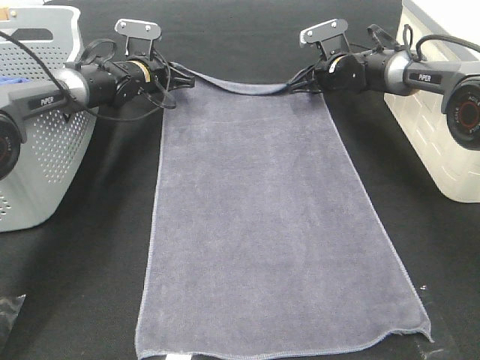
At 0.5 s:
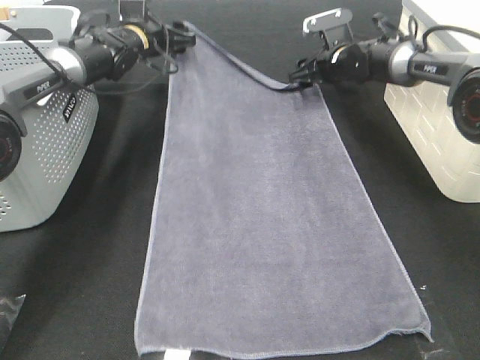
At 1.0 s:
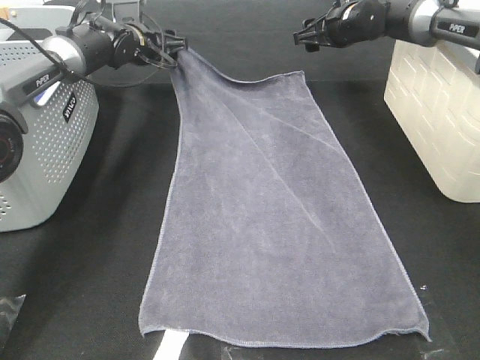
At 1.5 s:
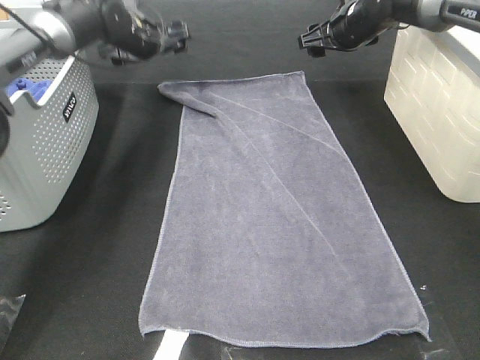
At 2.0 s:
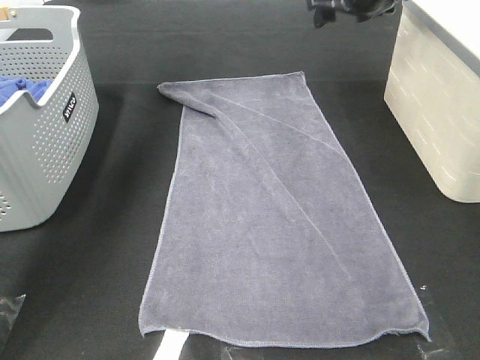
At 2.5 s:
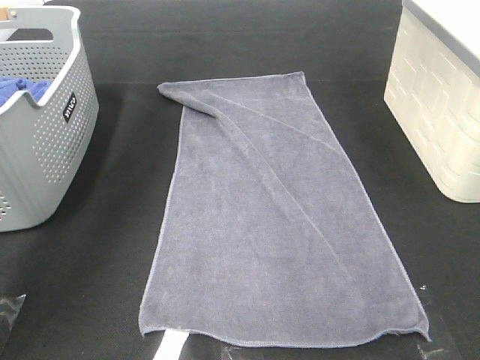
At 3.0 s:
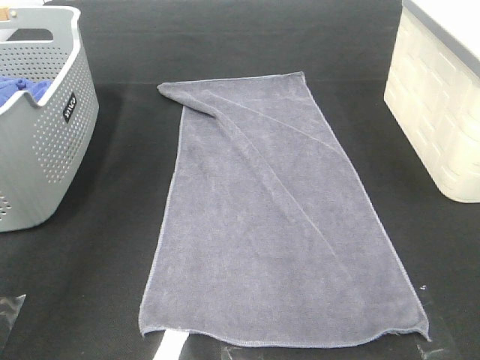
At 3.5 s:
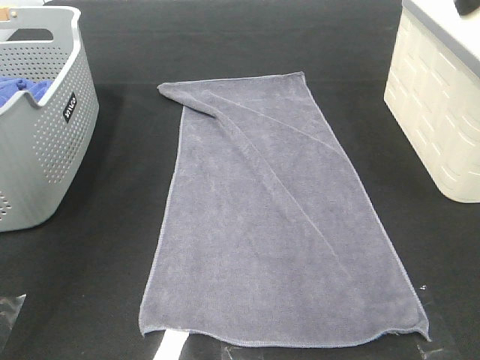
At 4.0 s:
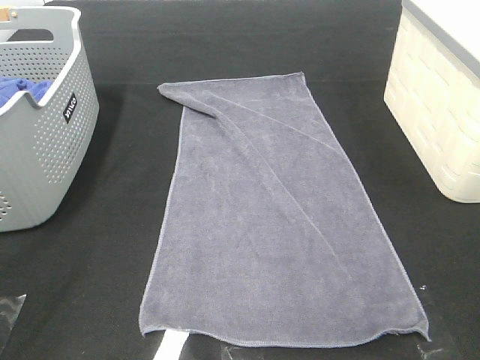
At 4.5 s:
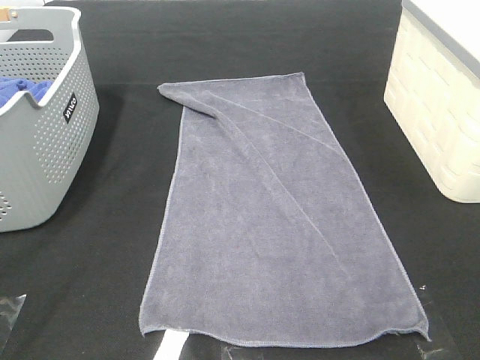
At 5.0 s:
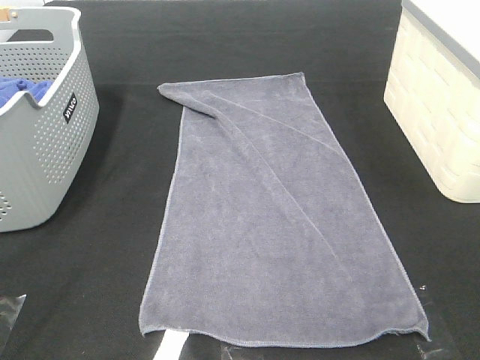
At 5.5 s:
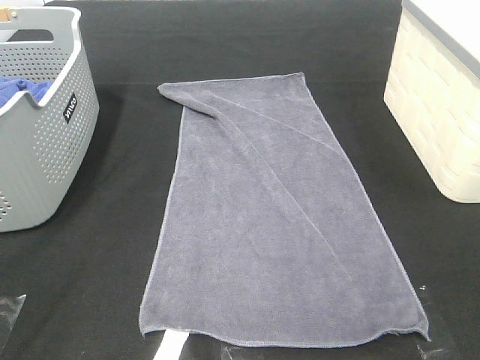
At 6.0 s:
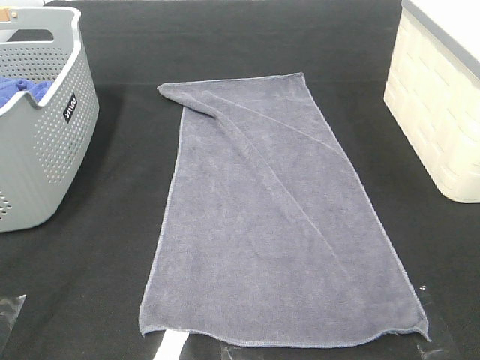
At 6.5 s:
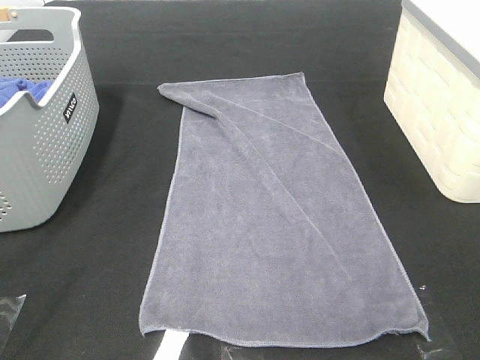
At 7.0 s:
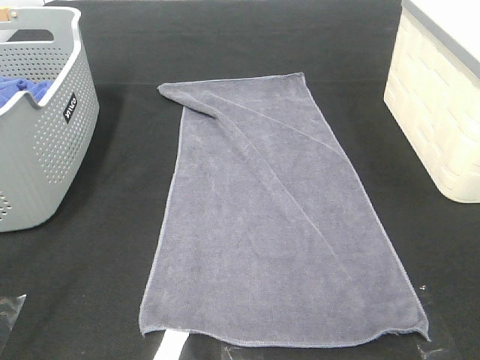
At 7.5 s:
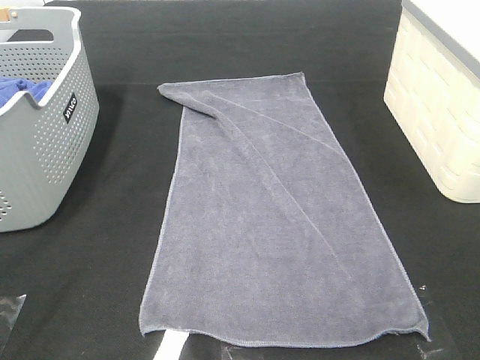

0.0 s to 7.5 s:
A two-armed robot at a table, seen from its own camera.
Task of the whole recording: Remove the towel and place it.
0.0 to 2.0 s: Both grippers travel together upward, about 20 cm. The left gripper opens its fingers. Meanwhile the right gripper opens.
2.0 to 4.0 s: Both grippers move backward, roughly 50 cm.

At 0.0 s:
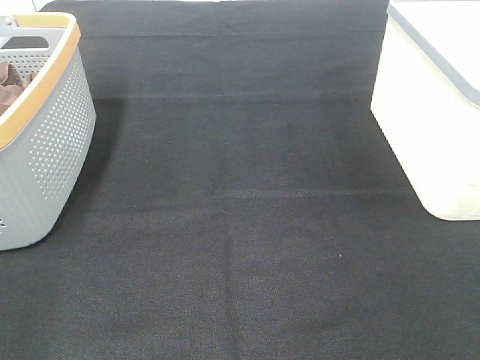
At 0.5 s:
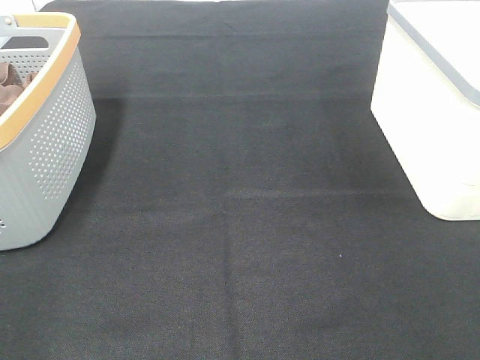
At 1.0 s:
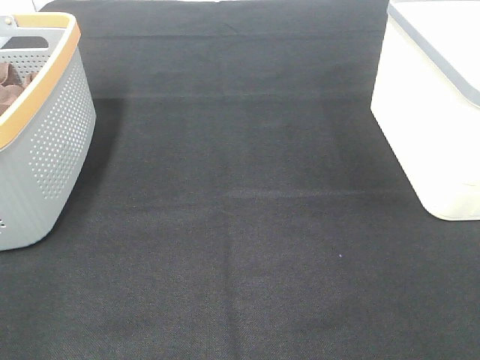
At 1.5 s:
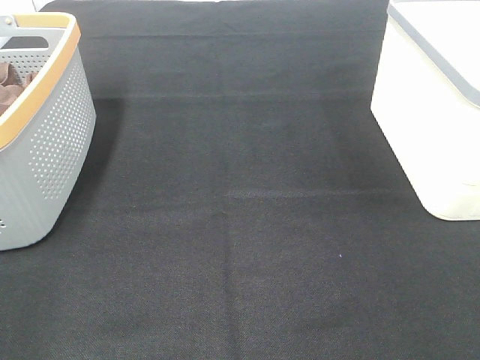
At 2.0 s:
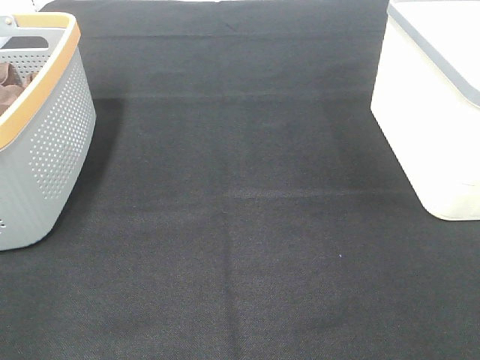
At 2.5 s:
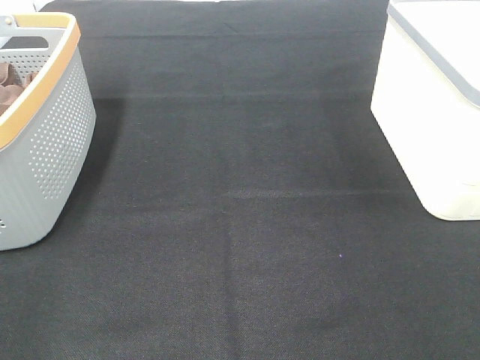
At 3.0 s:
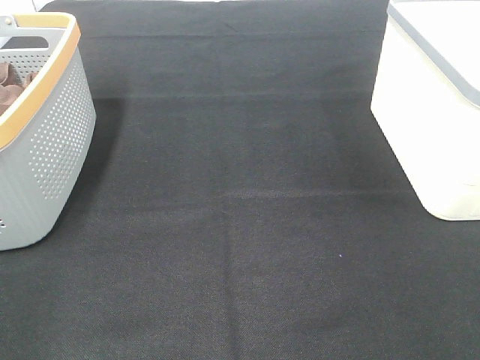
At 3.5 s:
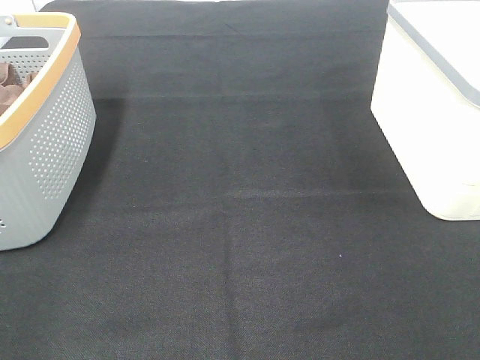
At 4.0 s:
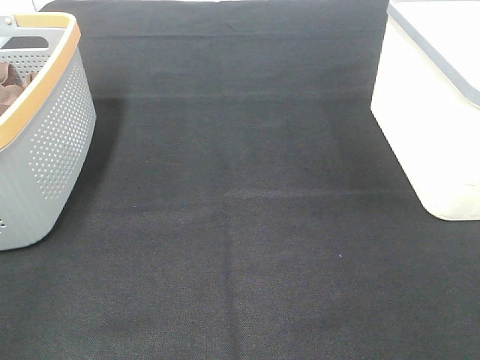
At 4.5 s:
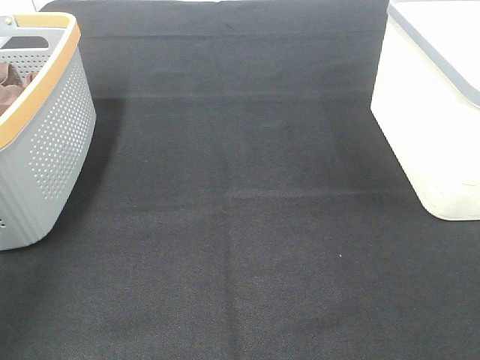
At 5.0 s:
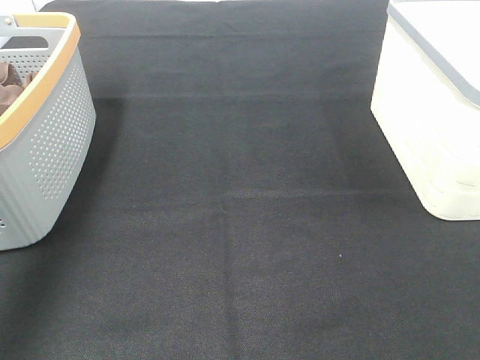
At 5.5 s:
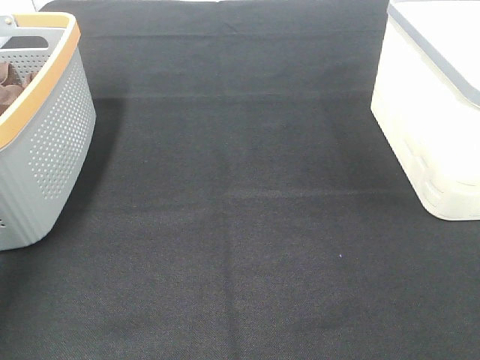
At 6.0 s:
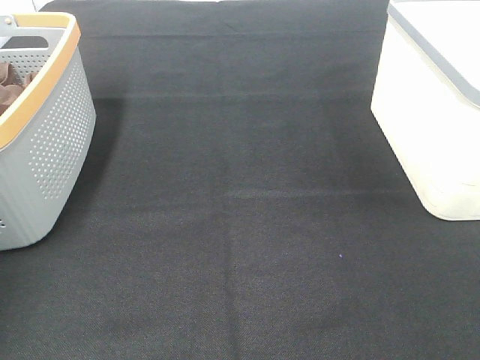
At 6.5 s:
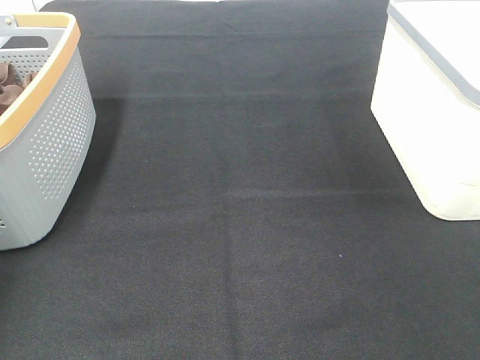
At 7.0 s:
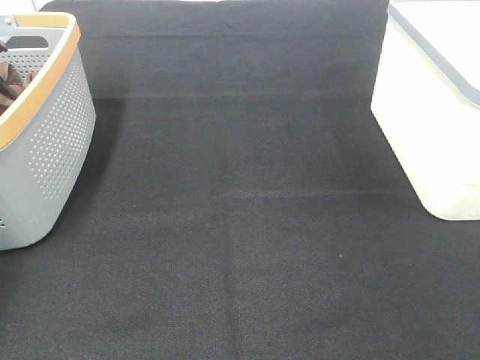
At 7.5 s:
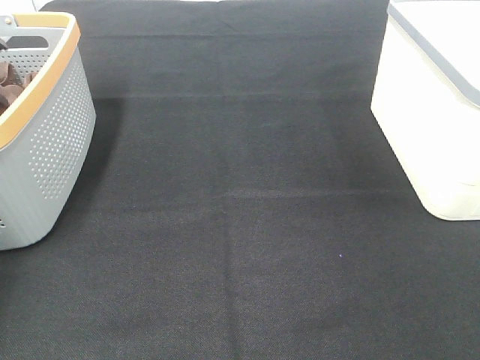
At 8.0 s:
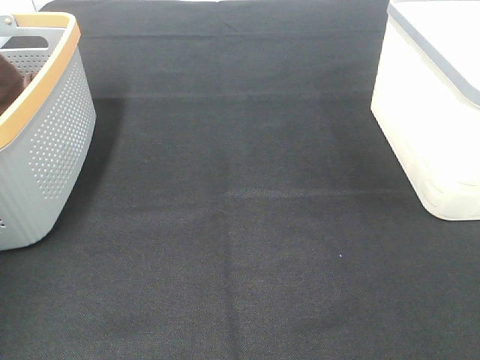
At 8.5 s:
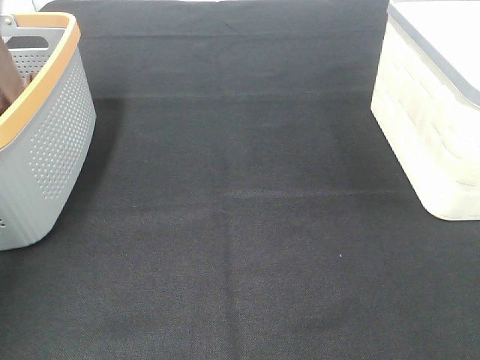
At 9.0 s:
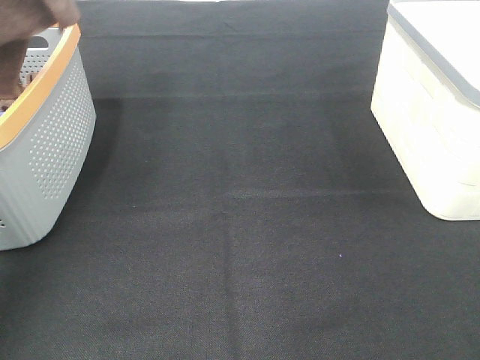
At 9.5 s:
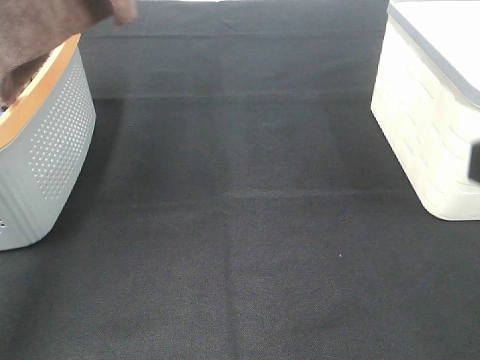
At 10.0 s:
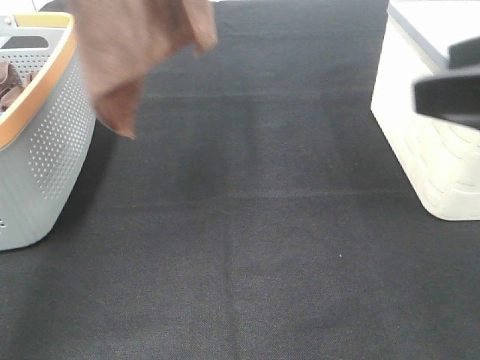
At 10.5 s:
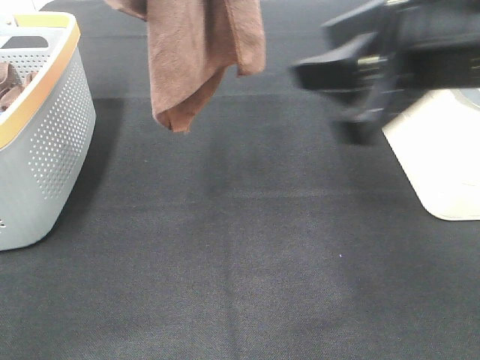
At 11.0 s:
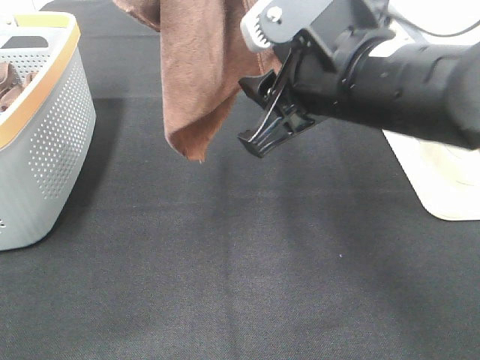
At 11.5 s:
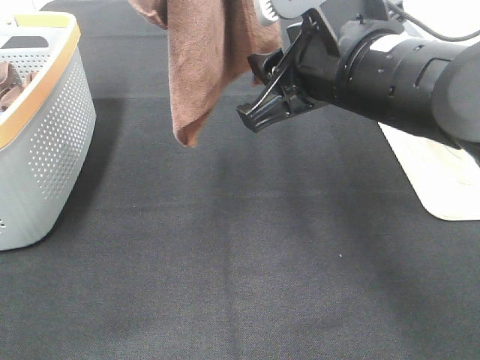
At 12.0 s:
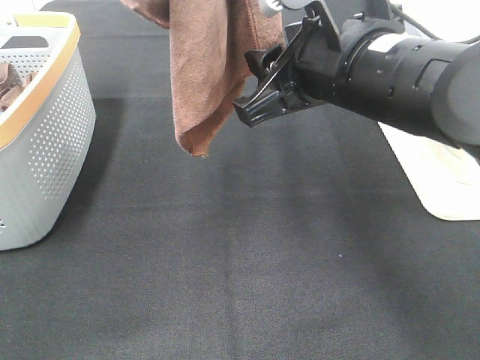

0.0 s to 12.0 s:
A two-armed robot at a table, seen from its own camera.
Task of the whole recording: Remove the towel and place it.
Step, 8.5 to 12.0 s: Right hand: grab a corner of the brown towel and straighten it.
0.0 to 2.0 s: Neither gripper changes place.
8.0 to 10.0 s: The right gripper moves forward and to the left, about 15 cm, while the left gripper shifts approximately 25 cm to the right, upward and backward.
10.0 to 12.0 s: The right gripper is displaced to the left, forward and downward by approximately 15 cm, while the left gripper goes about 5 cm to the right.

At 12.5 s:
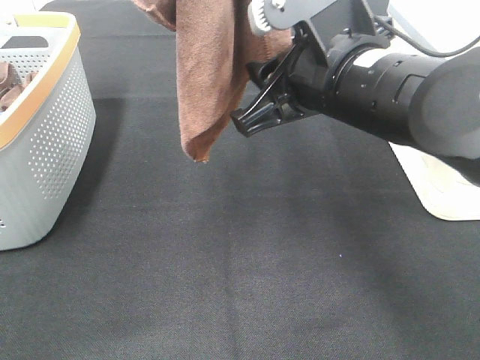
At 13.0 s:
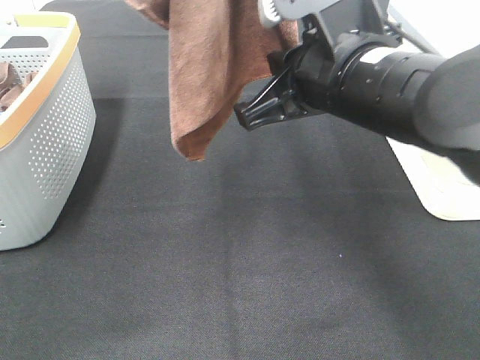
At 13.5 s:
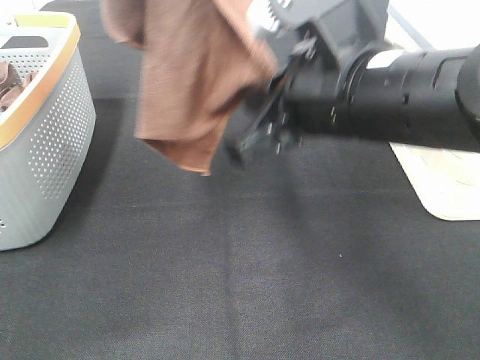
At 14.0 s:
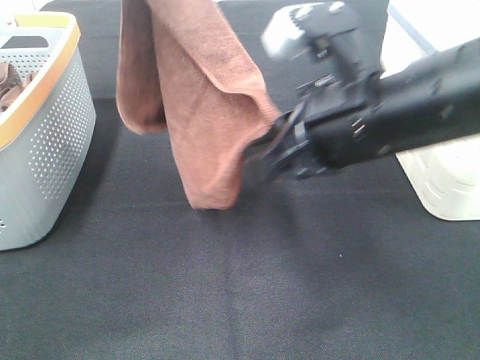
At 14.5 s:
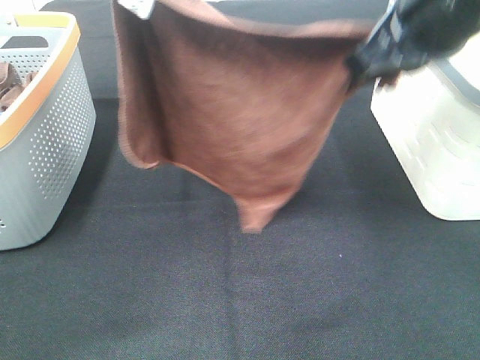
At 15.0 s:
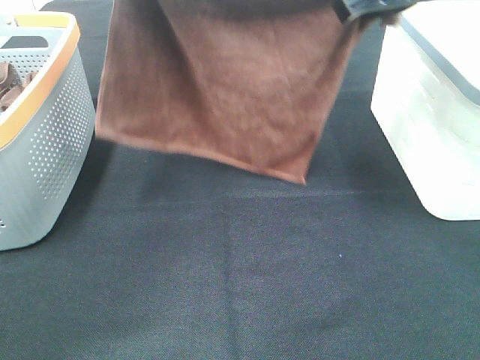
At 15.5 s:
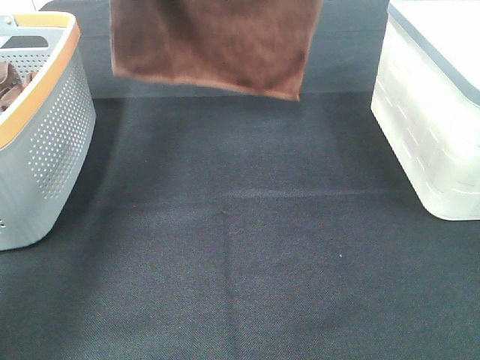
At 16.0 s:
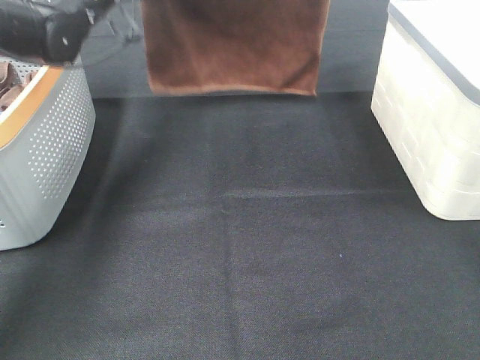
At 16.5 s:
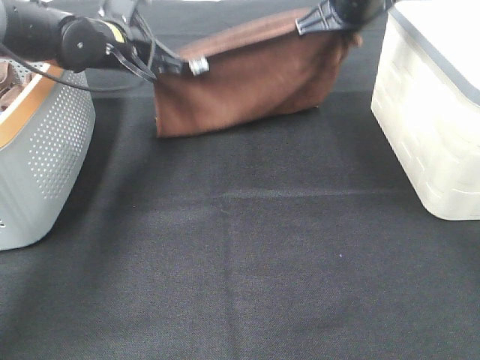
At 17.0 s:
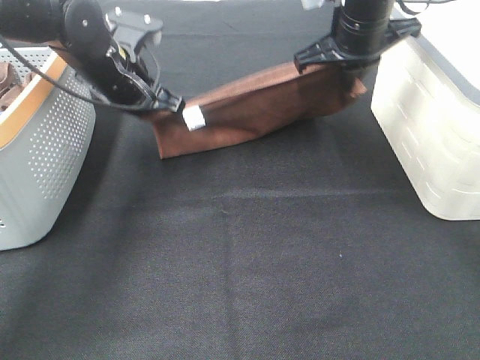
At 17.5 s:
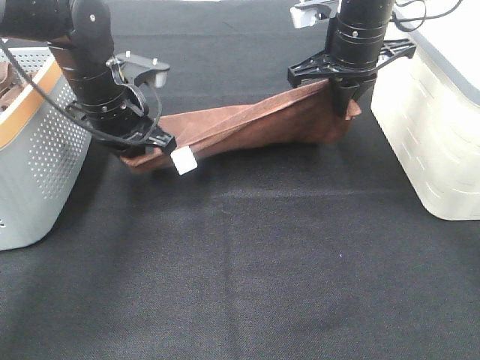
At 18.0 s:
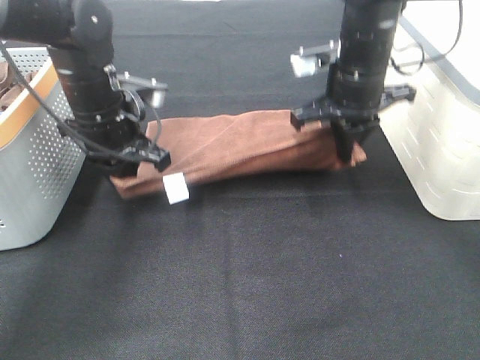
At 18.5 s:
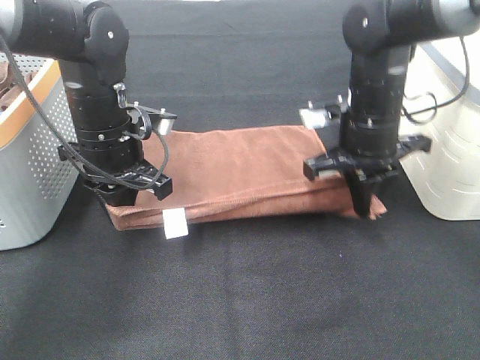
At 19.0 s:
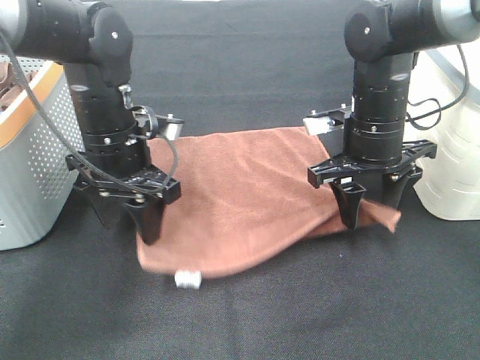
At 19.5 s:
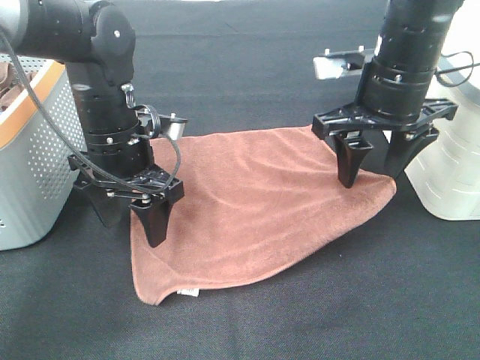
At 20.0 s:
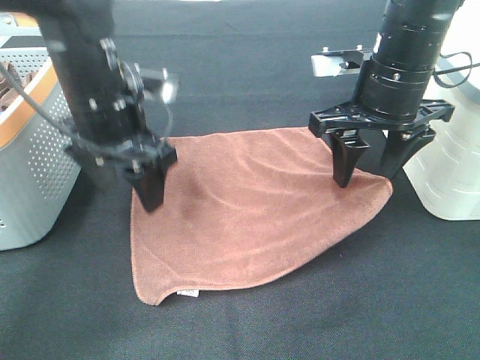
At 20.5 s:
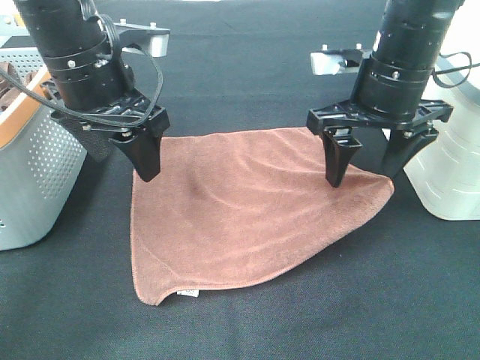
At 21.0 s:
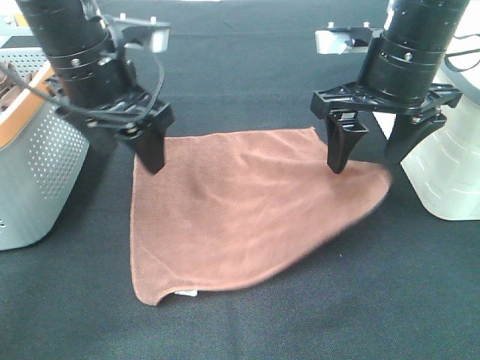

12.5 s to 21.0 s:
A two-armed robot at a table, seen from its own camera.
Task of the whole recording: Remove the towel and place it.
Step, 12.5 to 15.0 s: Left hand: spread the brown towel flat on the table.
Step, 12.5 to 15.0 s: Right hand: spread the brown towel flat on the table.
12.5 to 14.5 s: The right gripper goes approximately 10 cm upward and to the right, and closes its fingers; the left gripper is displaced downward by roughly 10 cm.
14.5 to 16.5 s: The right gripper moves forward, about 20 cm. The left gripper moves downward and forward, some 25 cm.
16.5 to 19.0 s: The left gripper shifts some 15 cm backward, and opens up; the right gripper goes about 15 cm backward and downward, and opens.
19.0 to 21.0 s: Both grippers move upward, about 10 cm.
